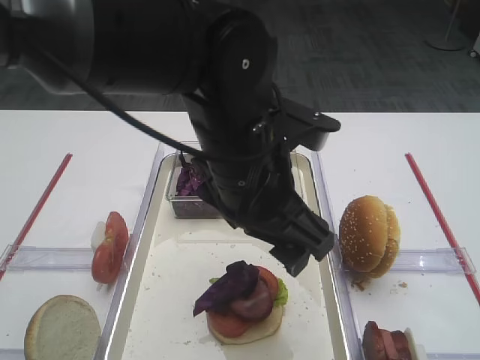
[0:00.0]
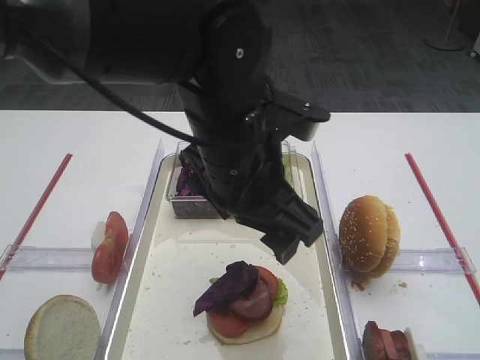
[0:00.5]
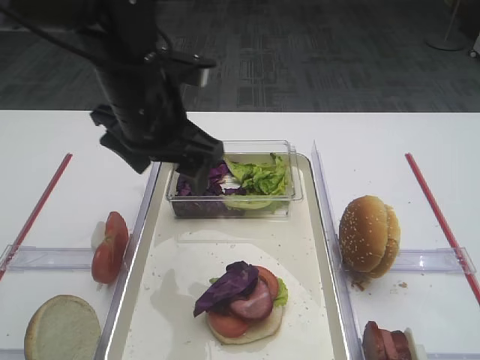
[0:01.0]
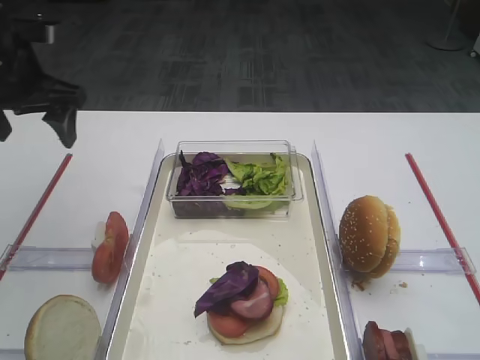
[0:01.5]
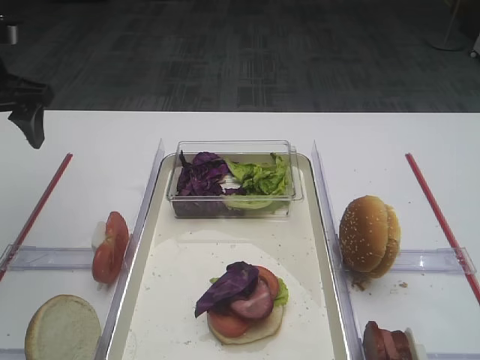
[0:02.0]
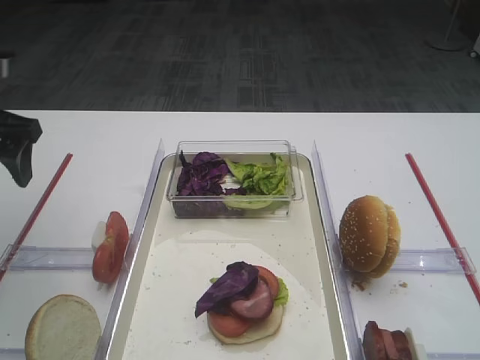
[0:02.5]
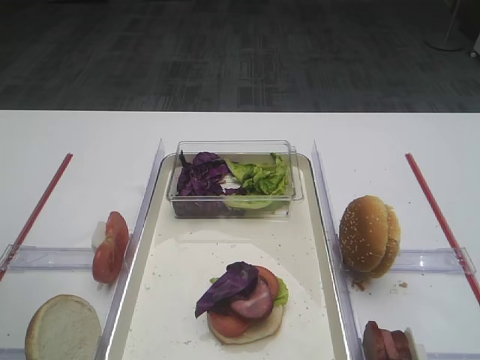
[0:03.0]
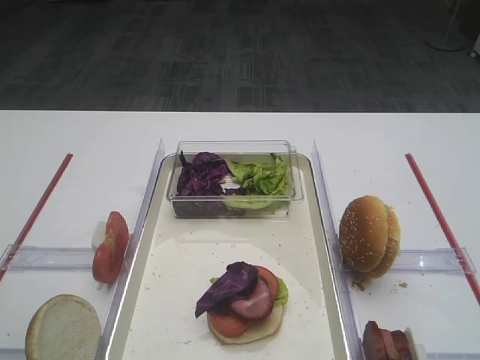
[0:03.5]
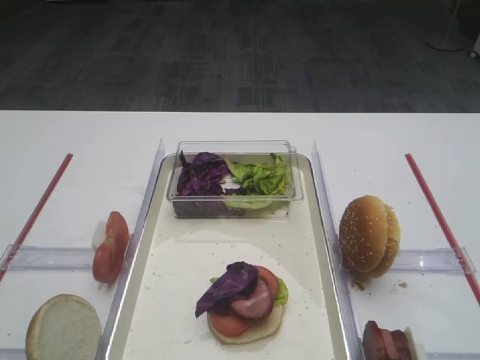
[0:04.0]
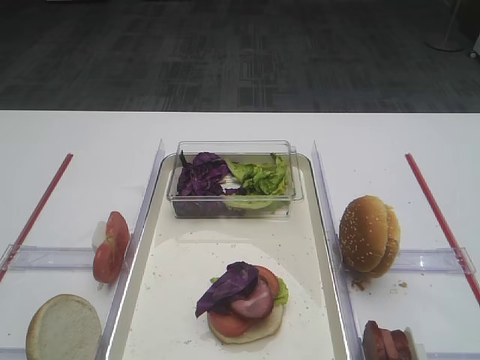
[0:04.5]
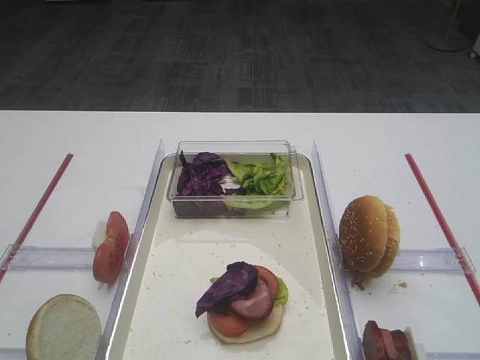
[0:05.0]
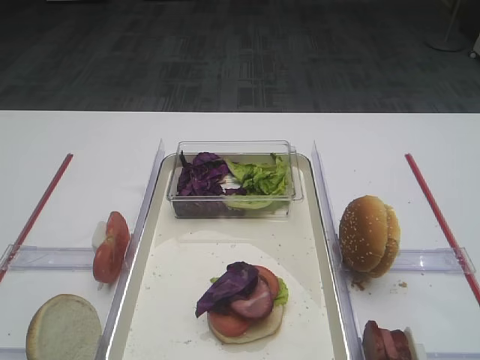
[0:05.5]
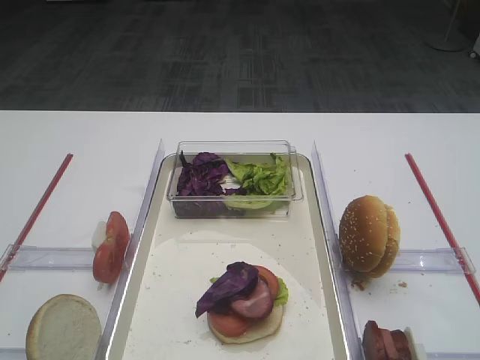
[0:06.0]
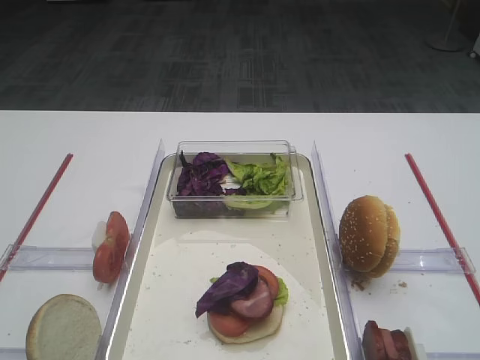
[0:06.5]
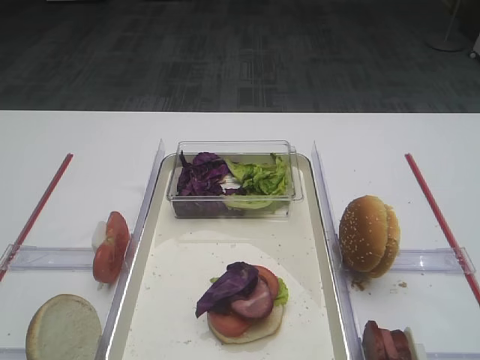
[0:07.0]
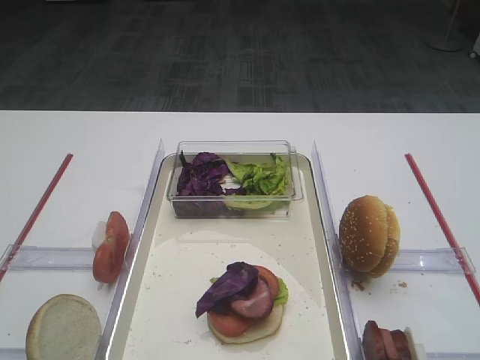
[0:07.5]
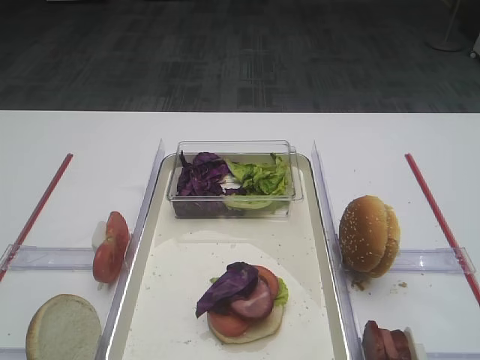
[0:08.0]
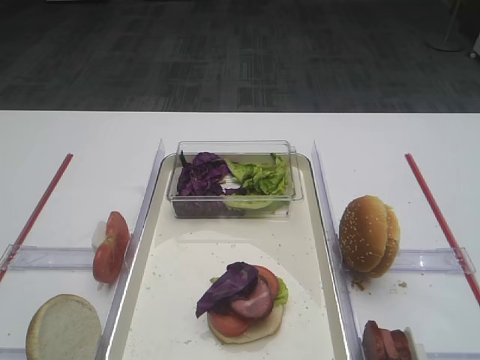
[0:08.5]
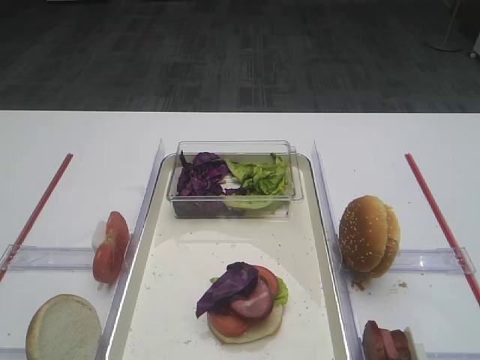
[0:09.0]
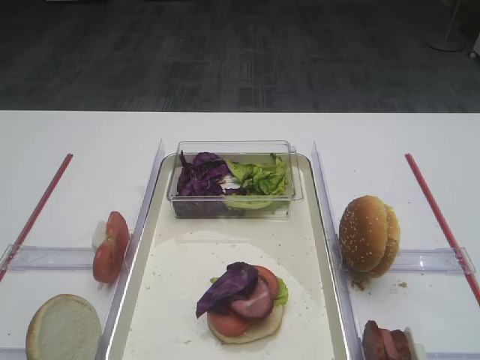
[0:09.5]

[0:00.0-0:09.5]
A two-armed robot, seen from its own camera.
0:00.0 to 0:02.0: The left gripper is displaced to the left and forward by about 30 cm.
0:02.0 to 0:04.0: The left gripper is displaced backward by about 30 cm.
0:05.5 to 0:09.5: Neither gripper changes place.

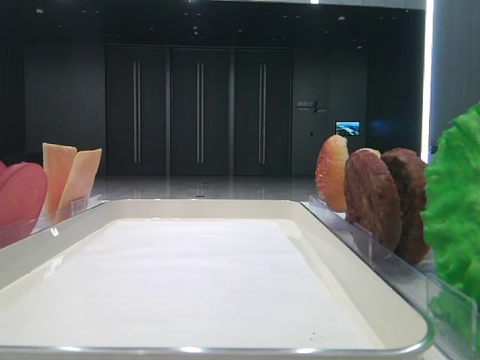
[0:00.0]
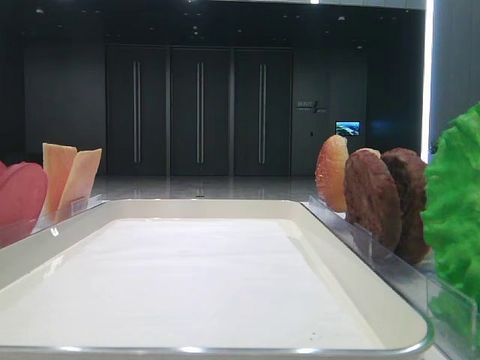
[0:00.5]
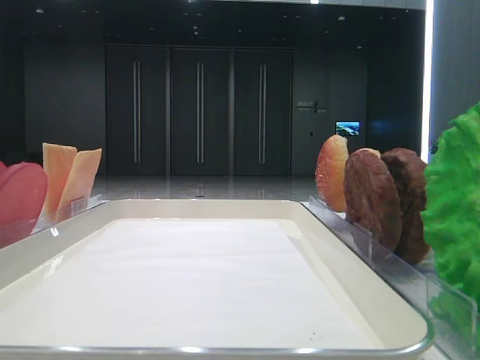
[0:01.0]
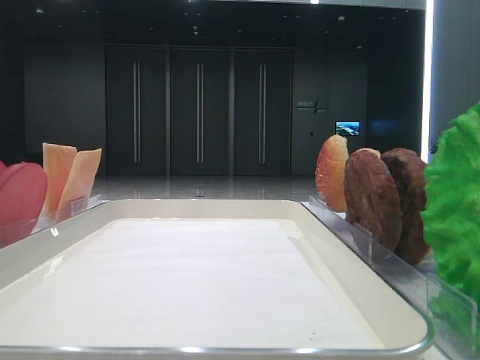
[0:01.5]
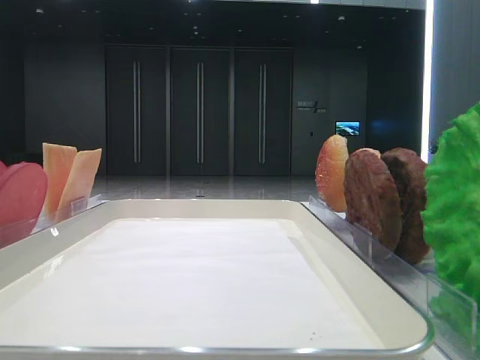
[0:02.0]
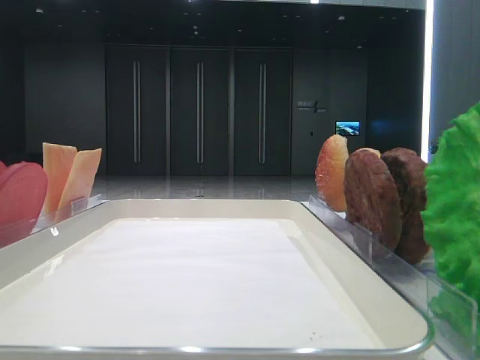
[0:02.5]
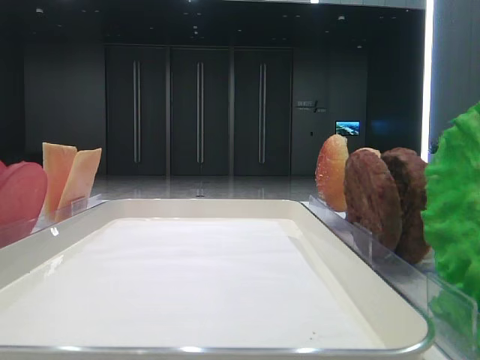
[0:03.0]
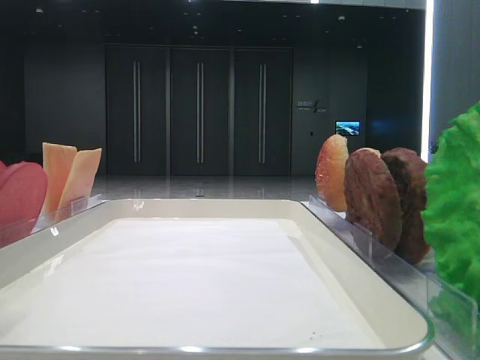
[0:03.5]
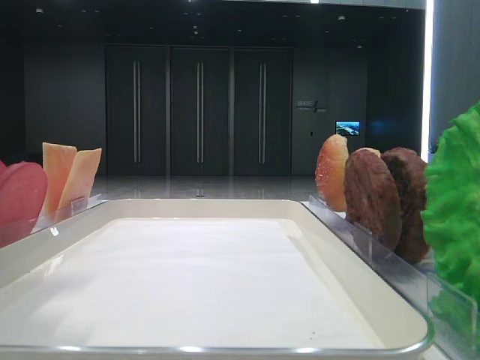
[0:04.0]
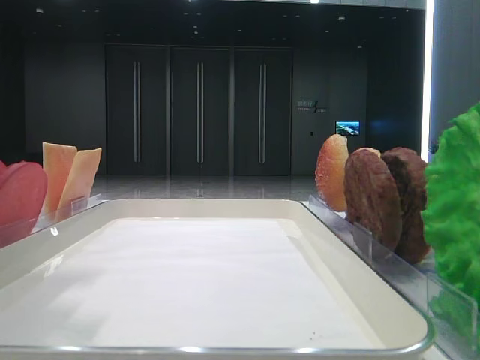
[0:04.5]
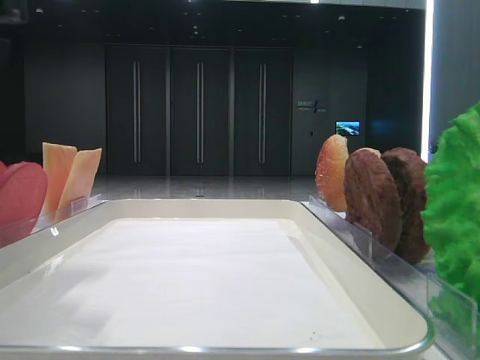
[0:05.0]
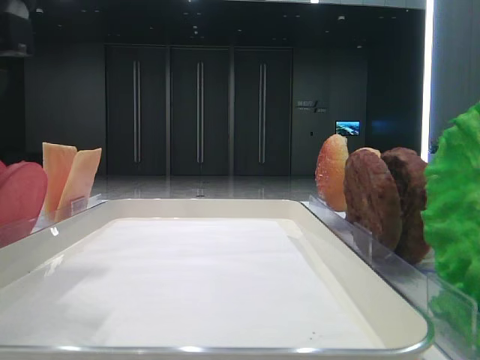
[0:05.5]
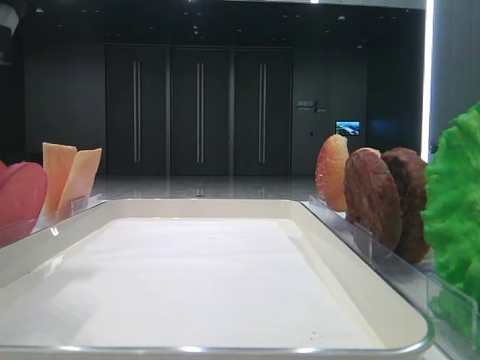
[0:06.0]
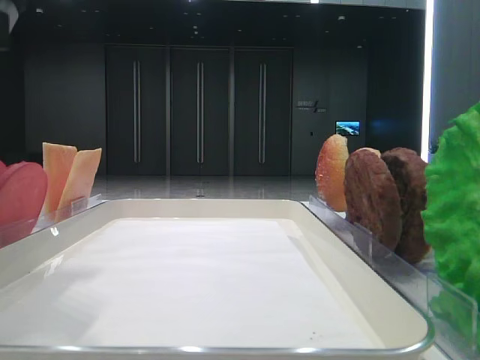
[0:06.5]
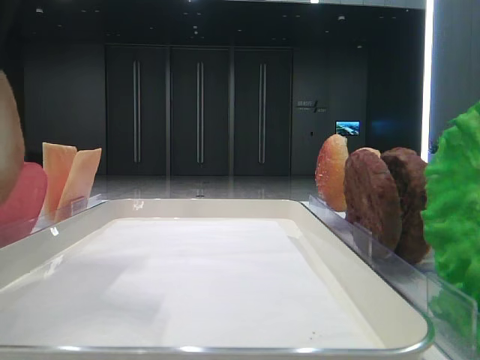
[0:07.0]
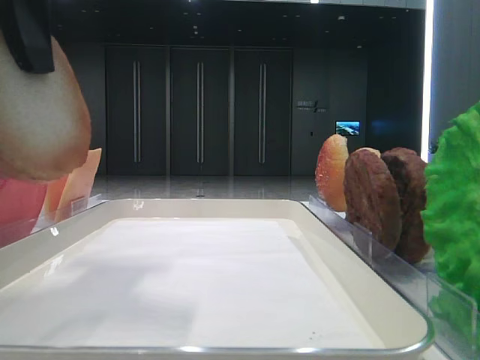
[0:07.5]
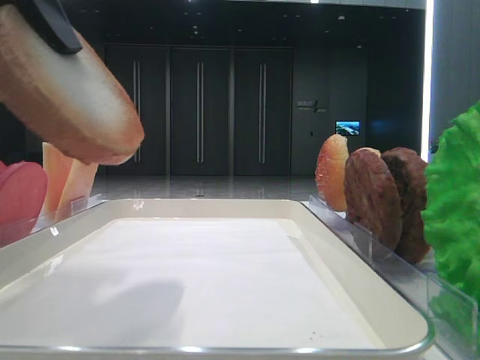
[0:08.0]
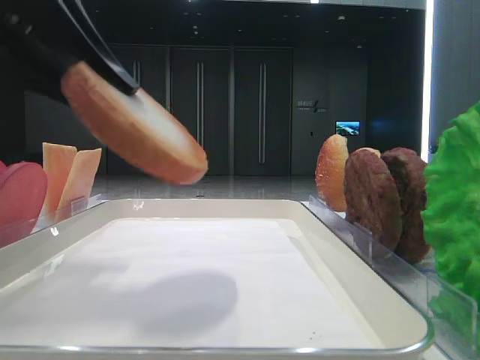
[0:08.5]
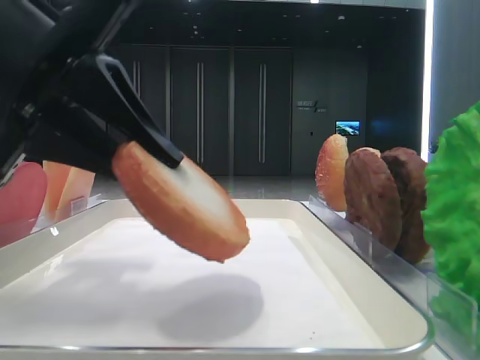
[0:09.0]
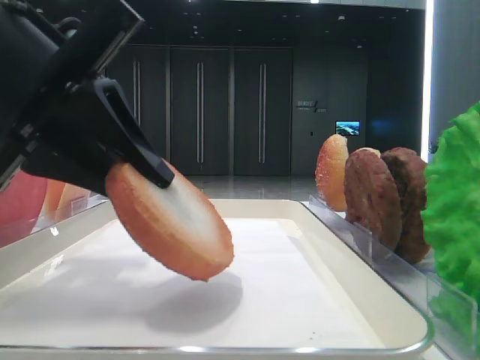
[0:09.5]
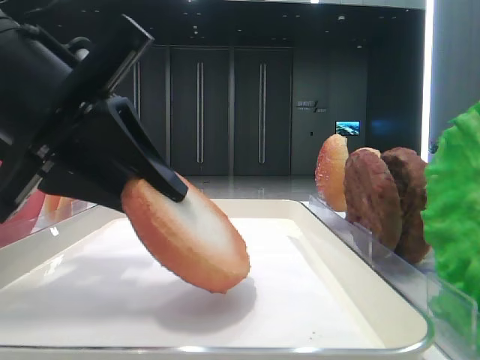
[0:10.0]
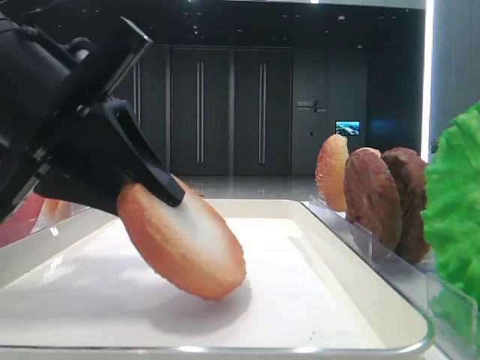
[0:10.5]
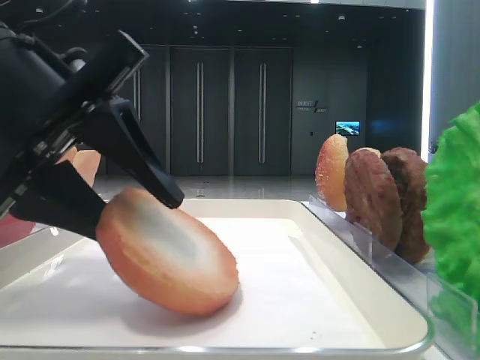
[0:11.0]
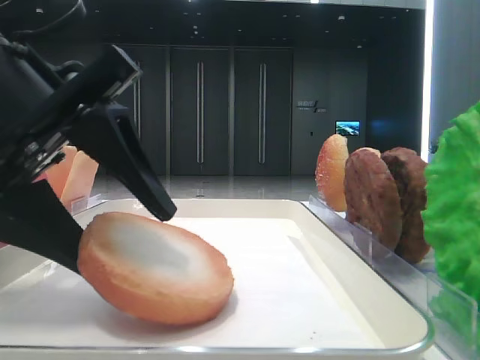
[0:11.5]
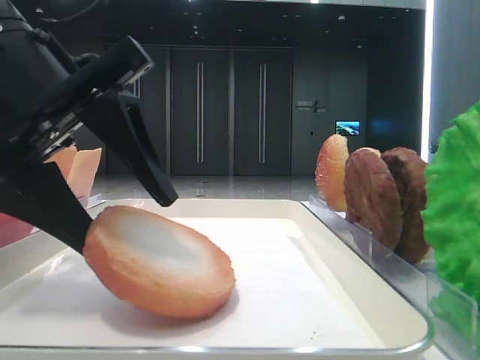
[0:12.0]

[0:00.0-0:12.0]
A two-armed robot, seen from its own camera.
Step, 0:00.0 to 0:06.0: Pick up the bottom bread with the left hand.
0:02.0 to 0:04.0: The left gripper travels forward and to the right by roughly 20 cm.
0:08.0 to 0:10.0: The left gripper heads downward, covering roughly 10 cm.
0:10.0 to 0:12.0: The left gripper opens up.

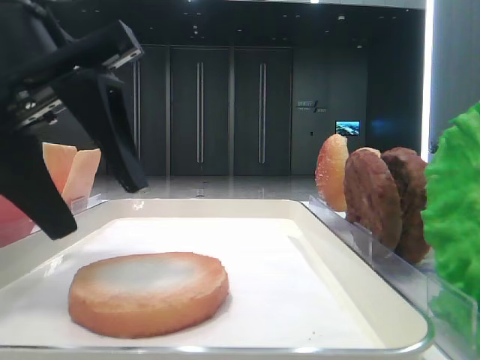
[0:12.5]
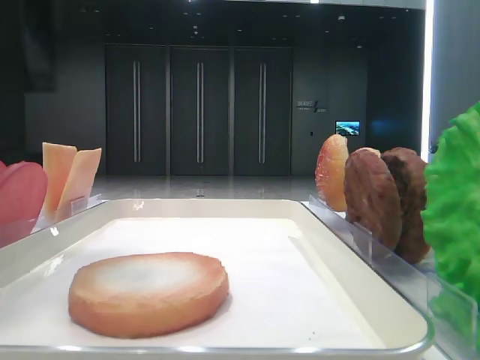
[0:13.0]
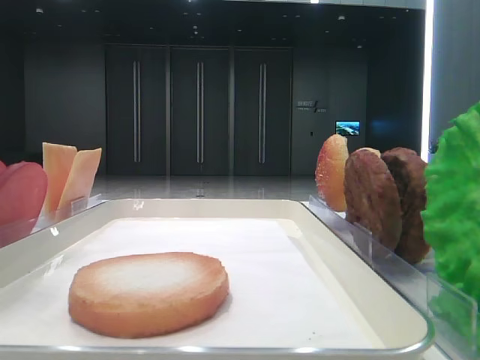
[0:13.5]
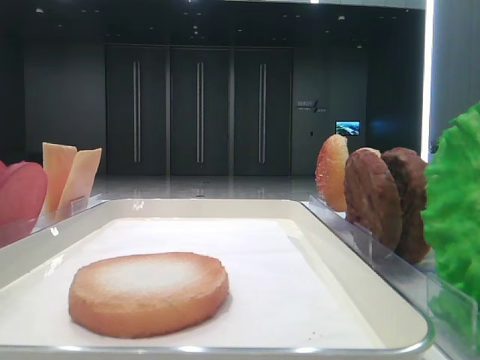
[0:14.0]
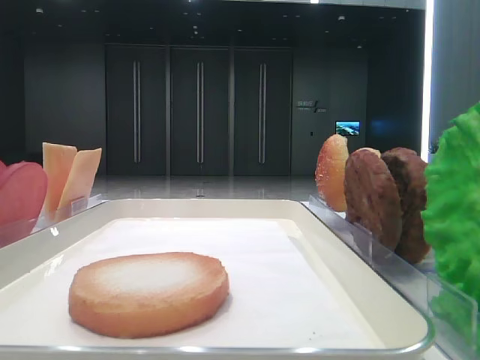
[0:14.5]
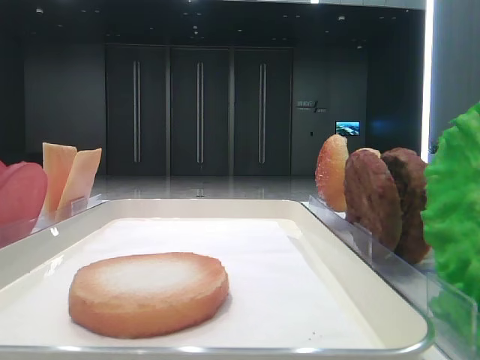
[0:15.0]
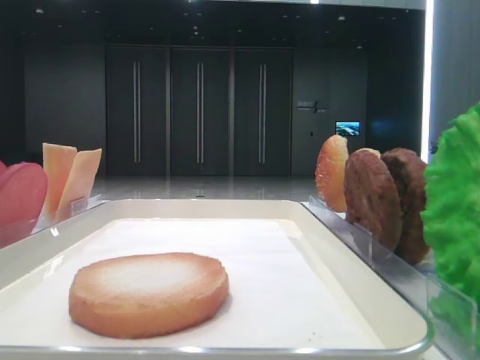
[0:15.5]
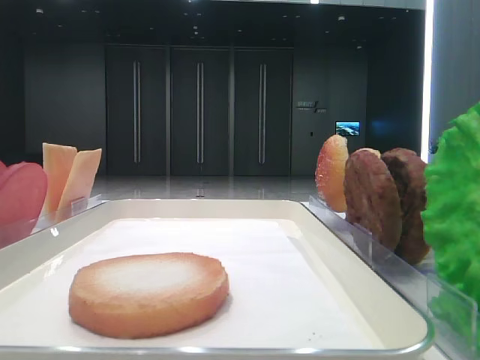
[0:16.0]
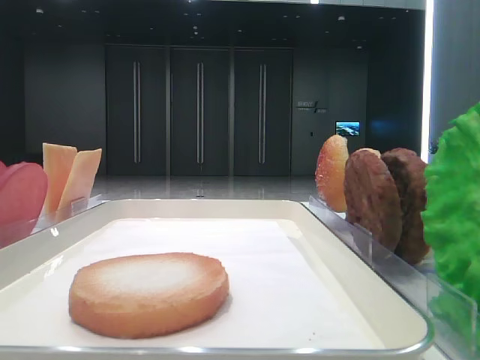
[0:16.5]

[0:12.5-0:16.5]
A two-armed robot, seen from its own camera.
0:12.5 to 0:14.5: The left gripper goes some 25 cm to the left and upward.
